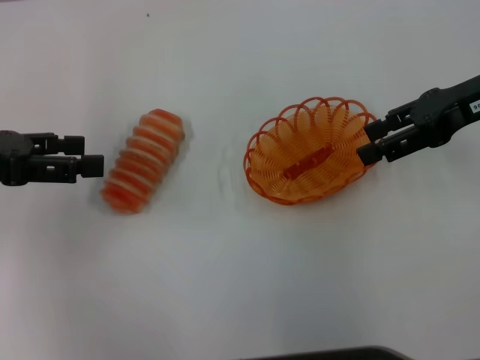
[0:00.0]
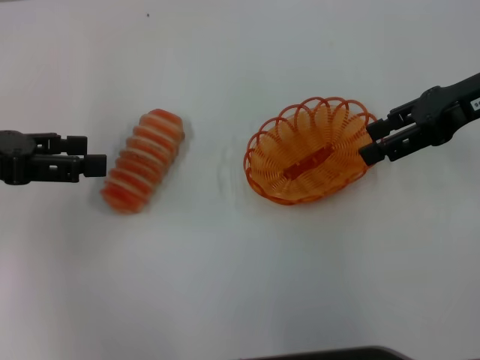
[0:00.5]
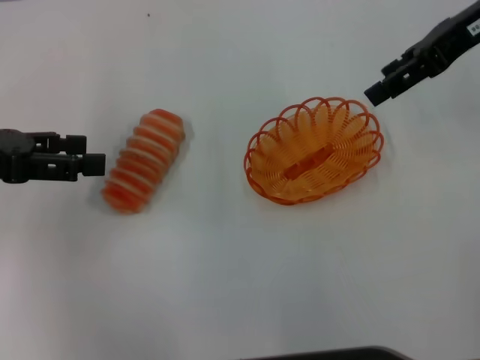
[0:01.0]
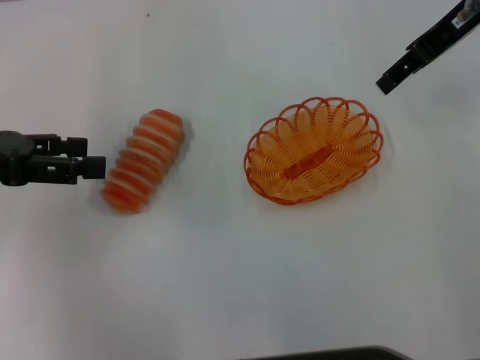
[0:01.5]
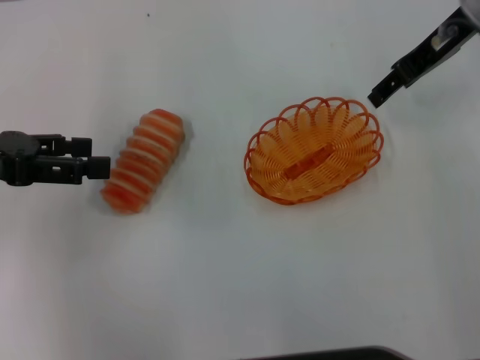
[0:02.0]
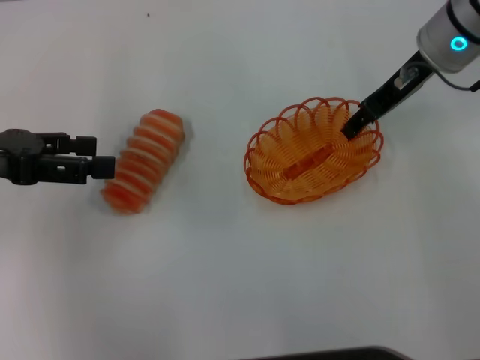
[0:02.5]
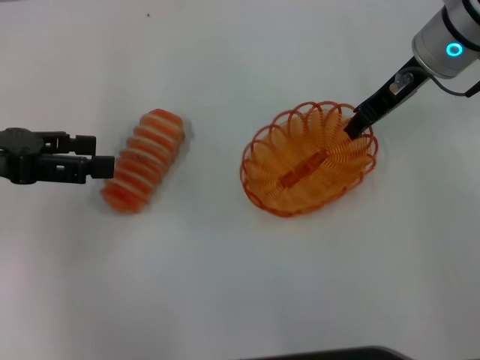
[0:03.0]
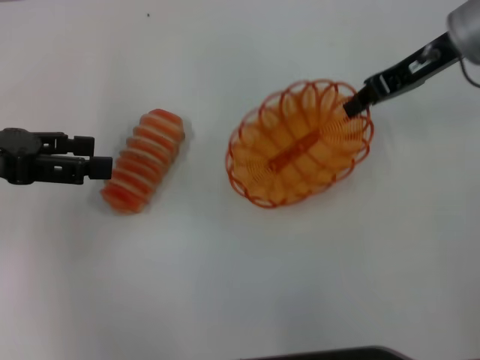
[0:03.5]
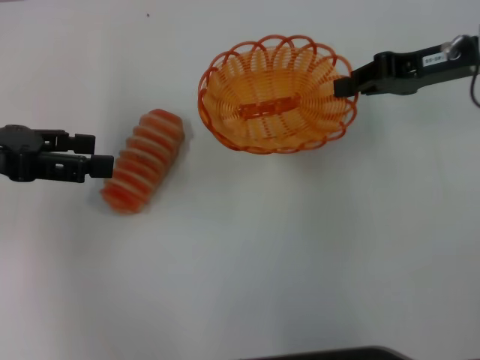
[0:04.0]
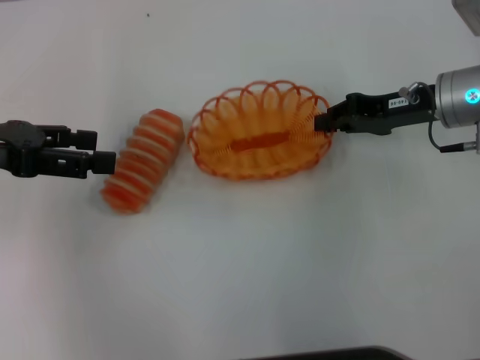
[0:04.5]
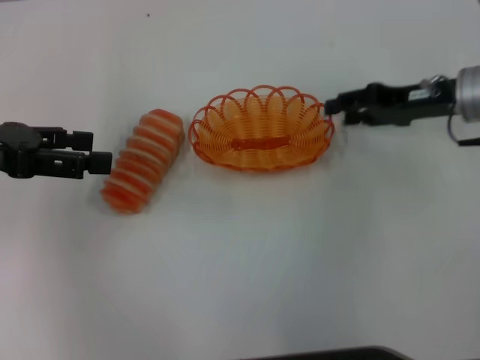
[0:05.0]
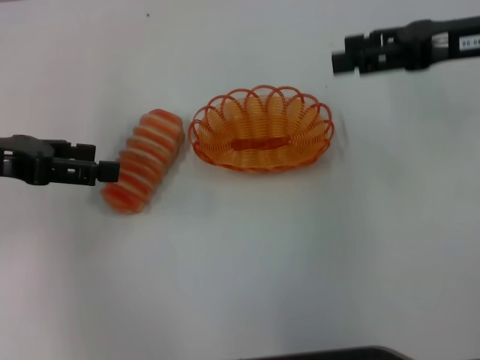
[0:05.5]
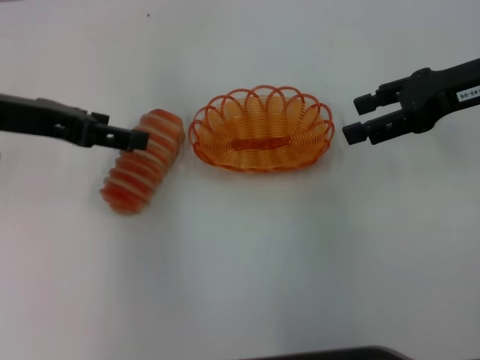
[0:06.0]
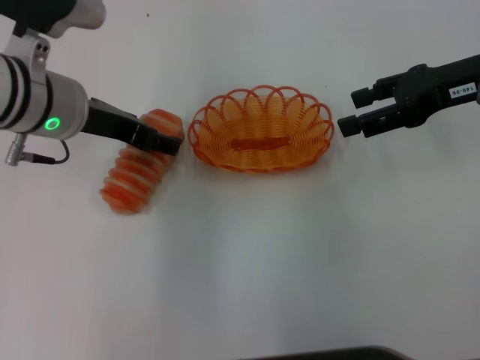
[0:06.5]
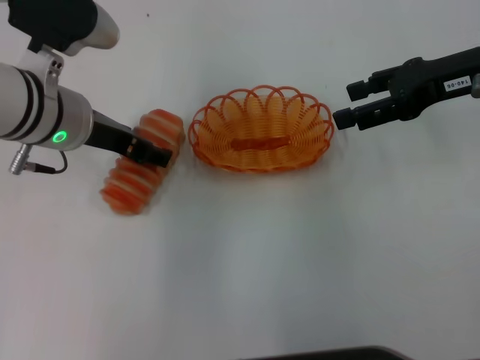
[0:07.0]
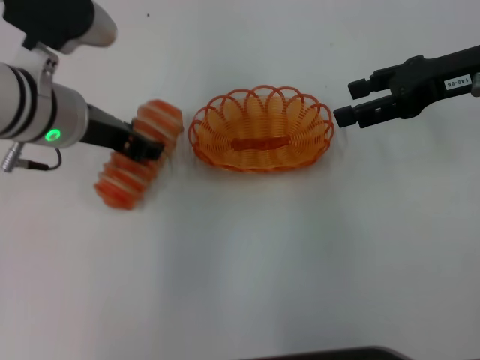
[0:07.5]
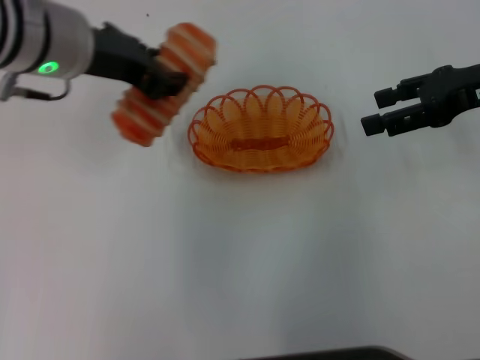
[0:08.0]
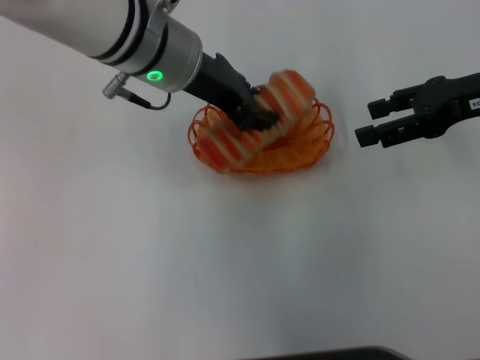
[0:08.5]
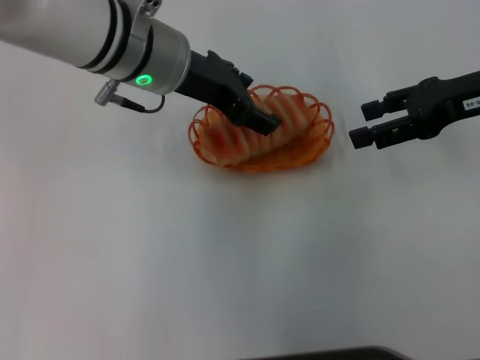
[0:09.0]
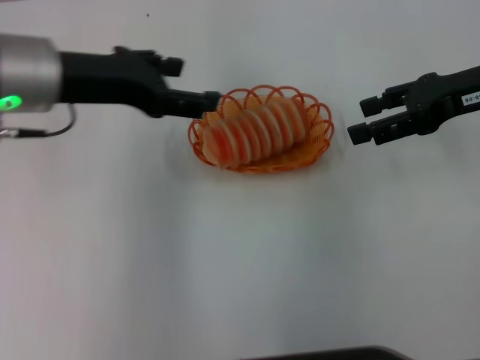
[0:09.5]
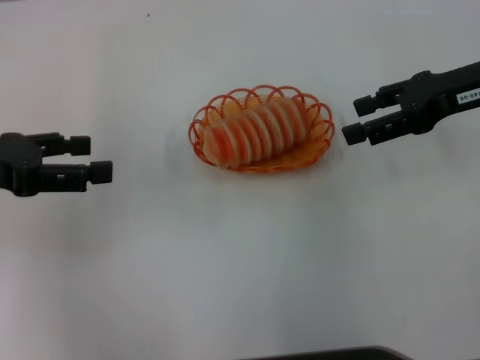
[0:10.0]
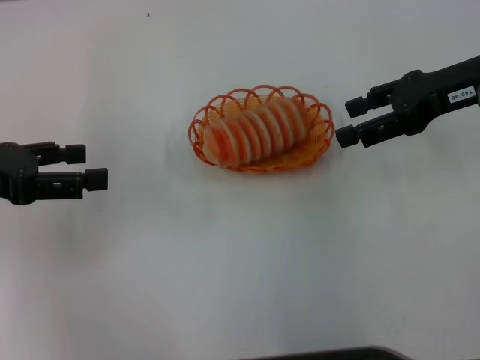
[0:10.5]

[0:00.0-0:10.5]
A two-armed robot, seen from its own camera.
Step, 0:00.0 to 0:03.0: Pick up the basket with the right gripper.
Step, 0:03.5 to 0:04.5: Place the basket in the center of view with the right gripper.
Step, 0:05.5 to 0:07.5: Pick up the long bread with the left gripper.
Step, 0:08.0 to 0:09.0: Place the long bread into the basket with the left gripper.
0:00.0 to 0:02.0: The right gripper moves forward, some 5 cm.
0:02.0 to 0:04.0: The right gripper is displaced downward by approximately 5 cm, and closes its fingers.
0:04.0 to 0:06.5: The left gripper is displaced to the right by roughly 15 cm. Meanwhile the right gripper reaches about 5 cm downward, then returns, and opens its fingers.
0:06.5 to 0:08.5: The left gripper travels to the right by some 10 cm, and closes its fingers.
0:08.5 to 0:10.5: The left gripper goes some 25 cm to the left, and opens its fingers.

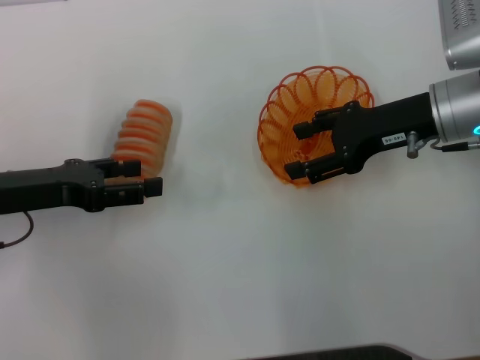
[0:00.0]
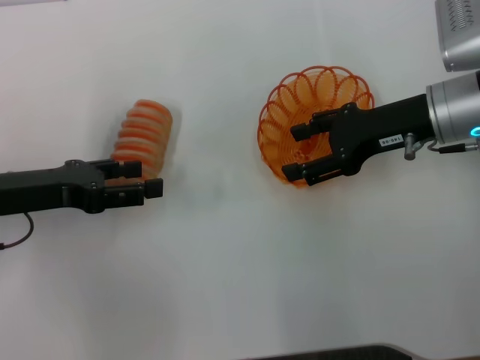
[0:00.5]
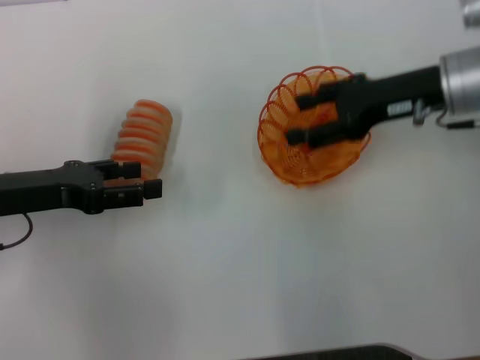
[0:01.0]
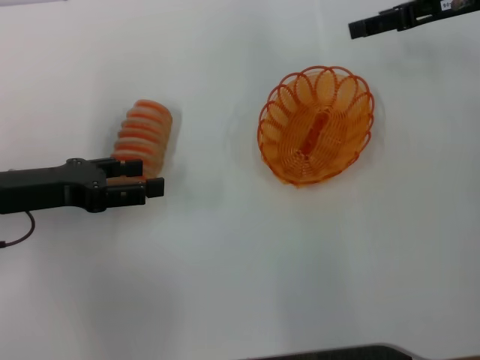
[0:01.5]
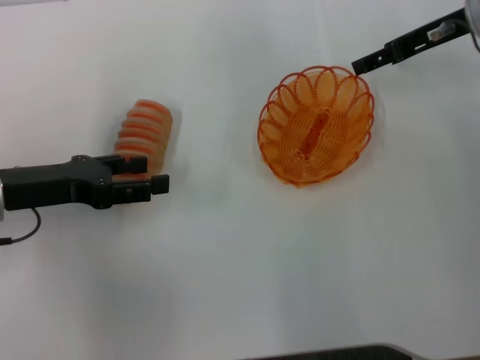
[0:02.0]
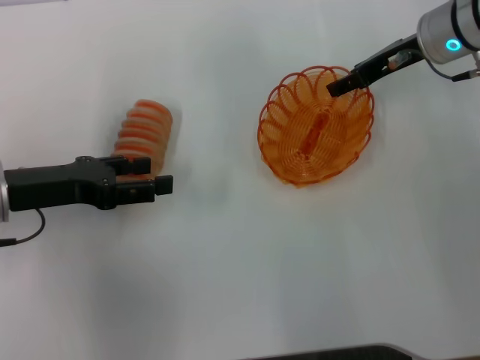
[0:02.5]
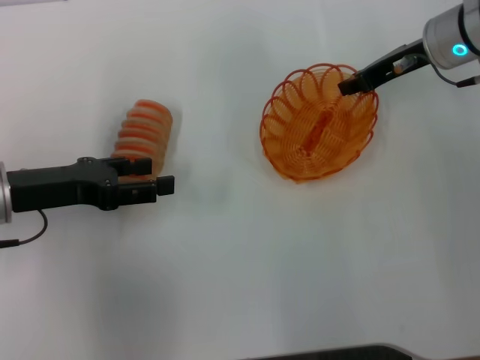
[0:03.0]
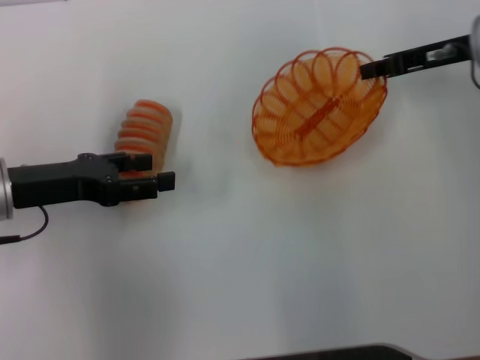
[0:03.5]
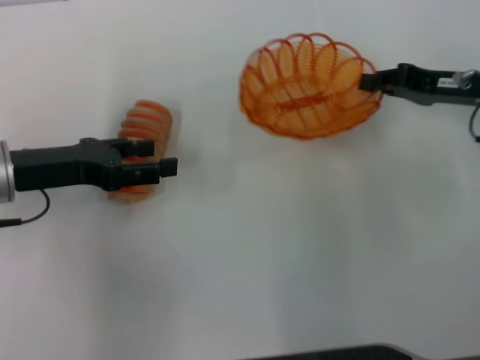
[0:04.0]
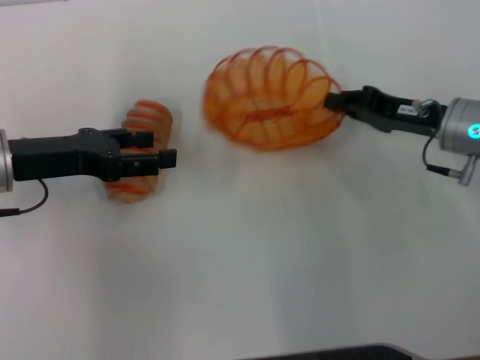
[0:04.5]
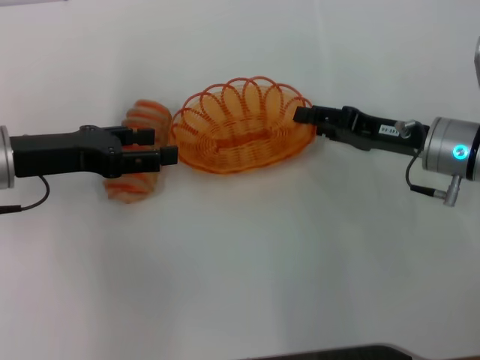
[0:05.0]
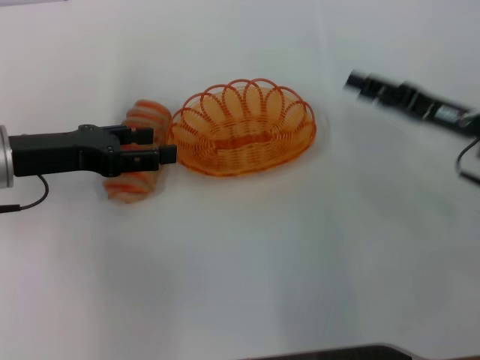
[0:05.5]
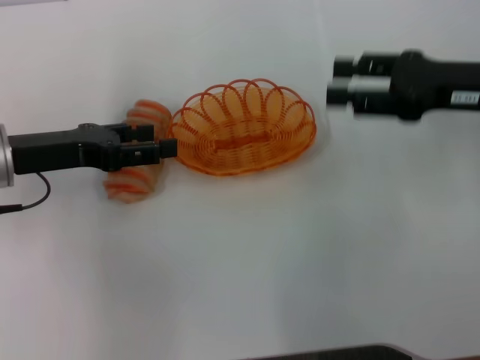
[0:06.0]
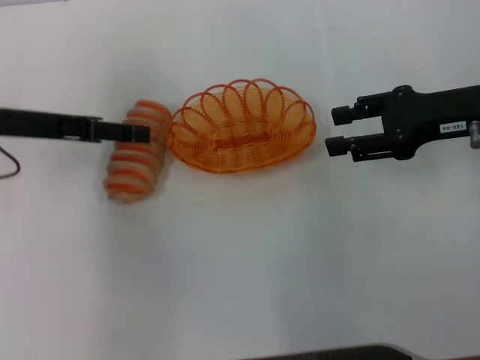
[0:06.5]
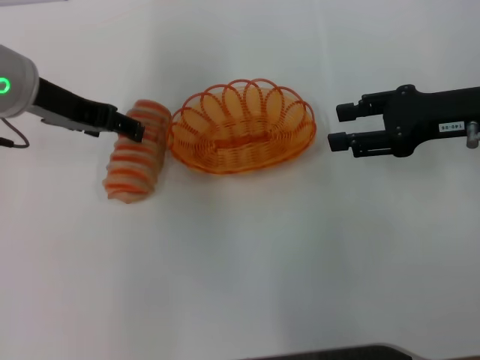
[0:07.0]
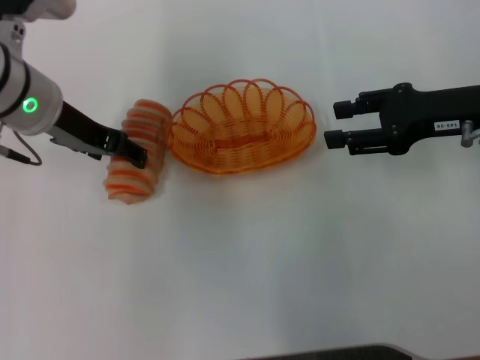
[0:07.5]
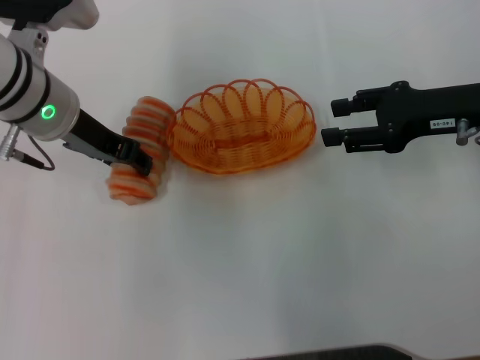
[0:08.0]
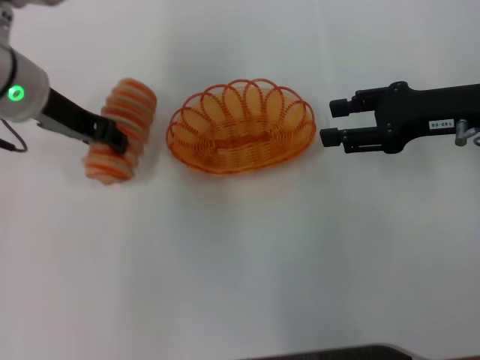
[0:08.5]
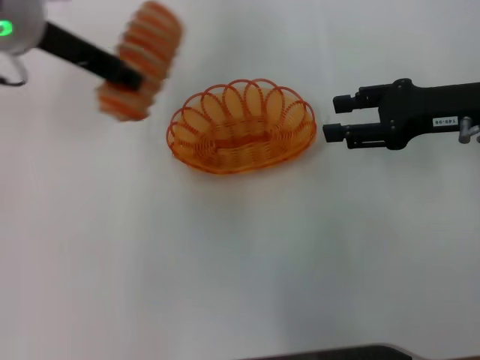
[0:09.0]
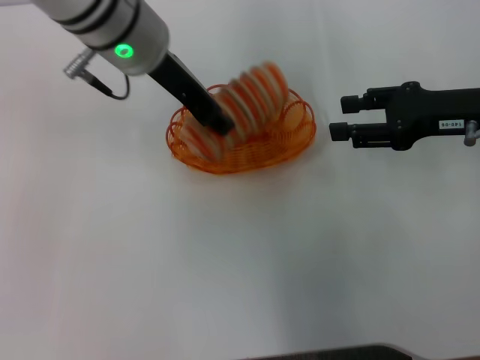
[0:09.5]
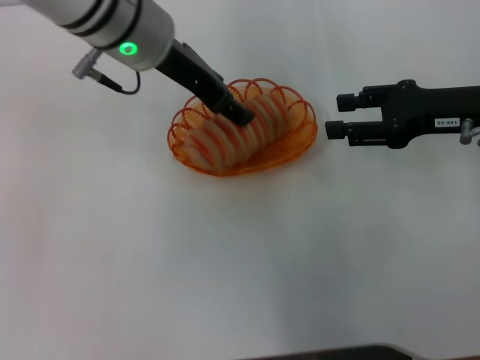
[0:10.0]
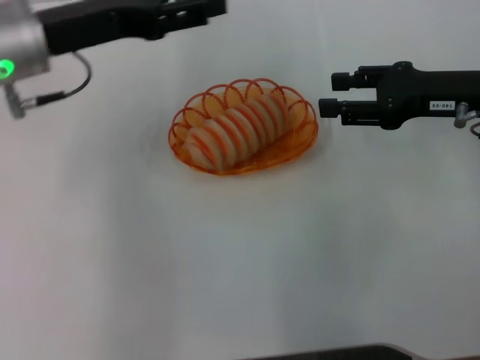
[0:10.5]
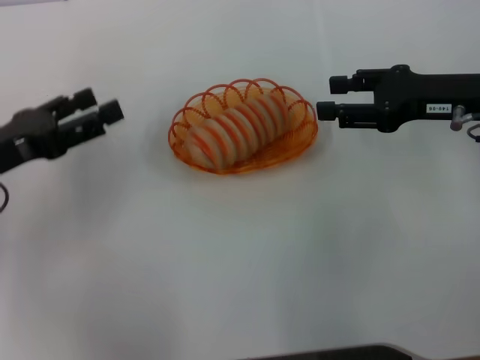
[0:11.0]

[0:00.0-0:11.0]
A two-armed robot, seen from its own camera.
Step, 0:00.0 to 0:03.5: Pick up the basket with the right gripper.
Step, 0:04.0 to 0:05.5: Place the basket in the center of view with the right gripper.
Step, 0:06.0 to 0:08.5: Pick up the long bread with the left gripper.
Step, 0:09.0 to 0:10.0: Place the long bread into the basket with the left gripper.
0:00.0 to 0:02.0: The right gripper goes some 10 cm forward.
0:02.0 to 0:03.5: The right gripper closes up.
0:03.5 to 0:05.5: The right gripper shifts about 10 cm backward and downward, and opens.
0:05.5 to 0:07.5: The left gripper is displaced to the right and upward by approximately 10 cm; the right gripper shifts about 5 cm upward.
0:07.5 to 0:09.0: The left gripper shifts approximately 5 cm upward, and closes up.
0:09.0 to 0:11.0: The left gripper is displaced downward, backward and to the left by about 20 cm, and opens up.

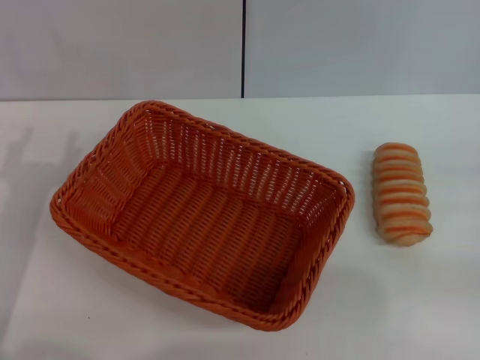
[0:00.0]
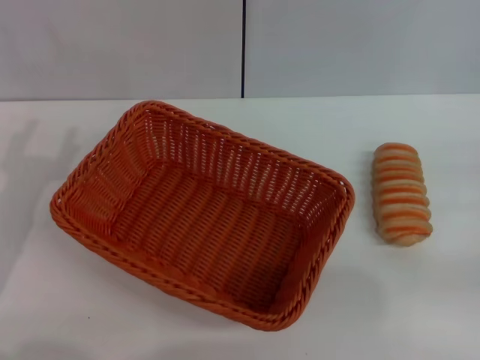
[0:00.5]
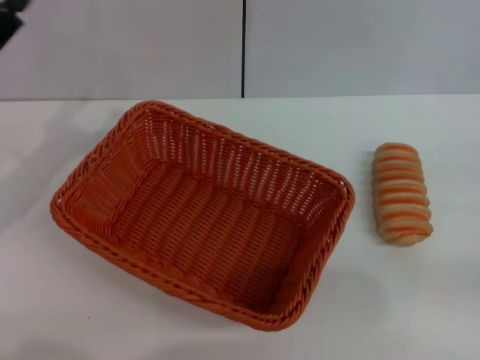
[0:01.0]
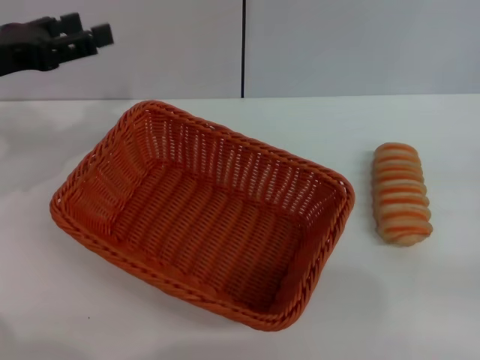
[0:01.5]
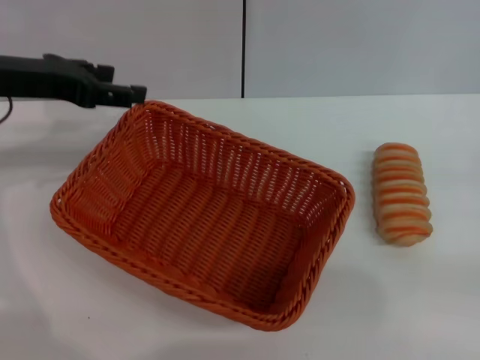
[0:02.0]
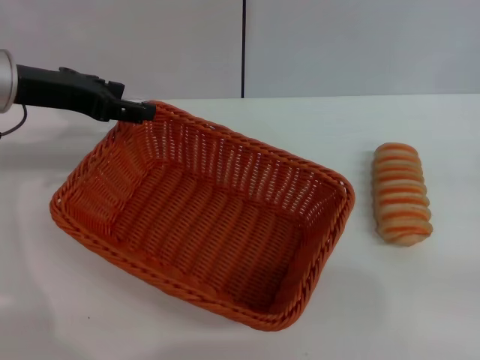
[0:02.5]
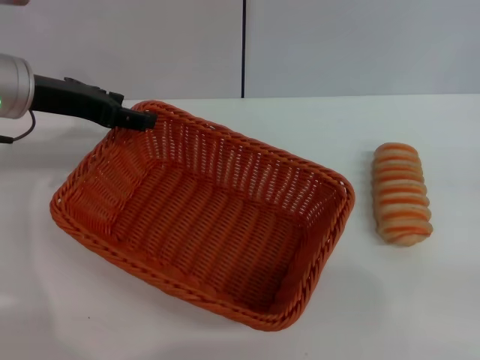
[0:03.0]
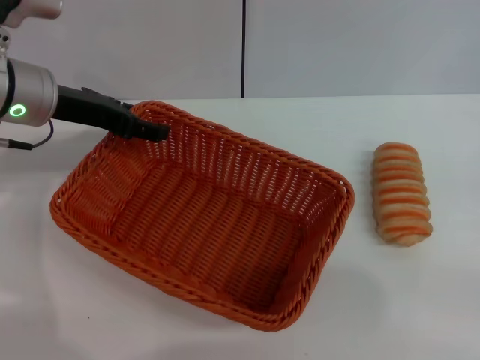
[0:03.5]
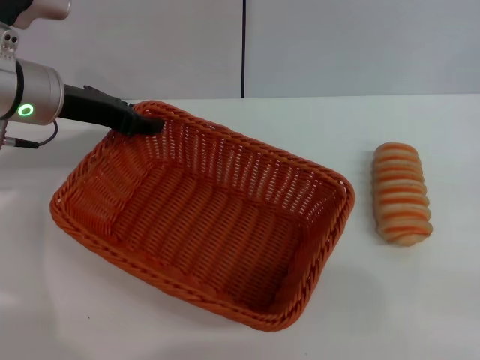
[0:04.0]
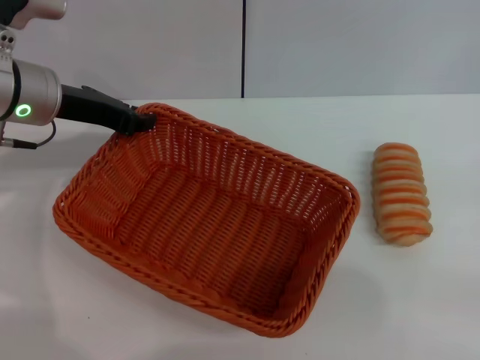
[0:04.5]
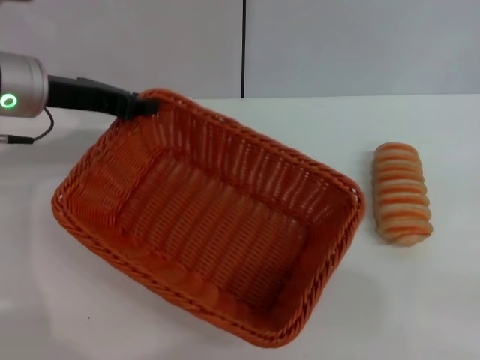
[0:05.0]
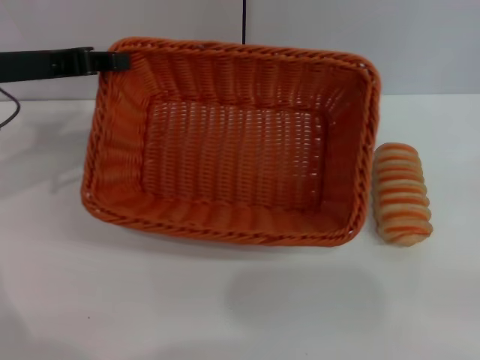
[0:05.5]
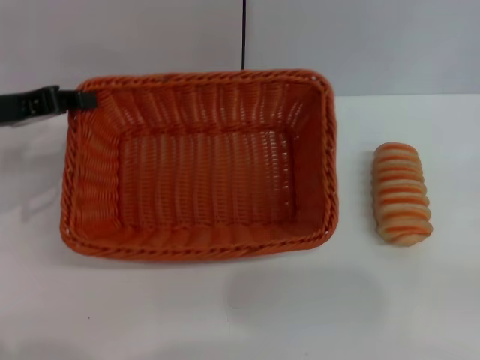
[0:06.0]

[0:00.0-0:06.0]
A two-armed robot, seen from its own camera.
Step, 0:00.0 to 0:05.0: Pick up the light basket with the left gripper.
0:00.0 to 0:02.0: The left gripper travels forward and upward by about 20 cm.
0:02.0 to 0:04.0: The left gripper shifts by about 5 cm.
0:04.0 to 0:06.0: The left gripper moves to the left and backward, some 10 cm, and closes up.
